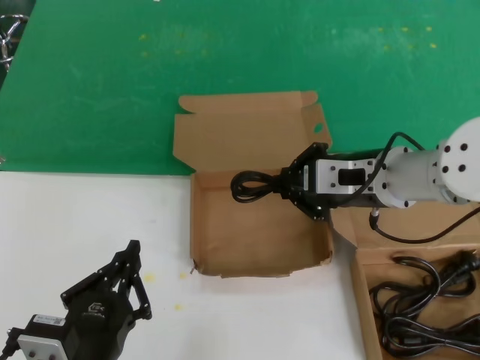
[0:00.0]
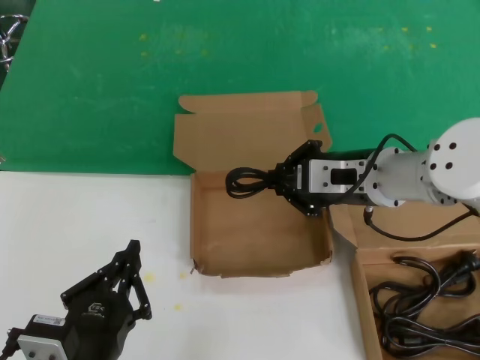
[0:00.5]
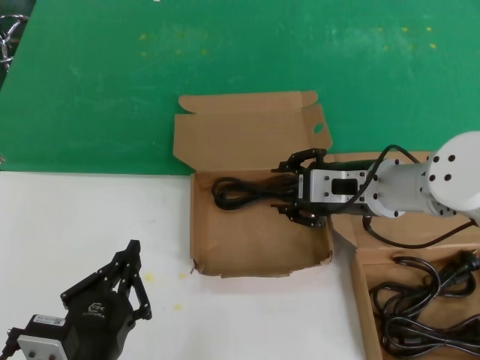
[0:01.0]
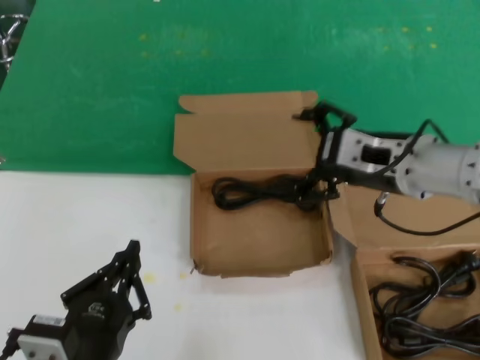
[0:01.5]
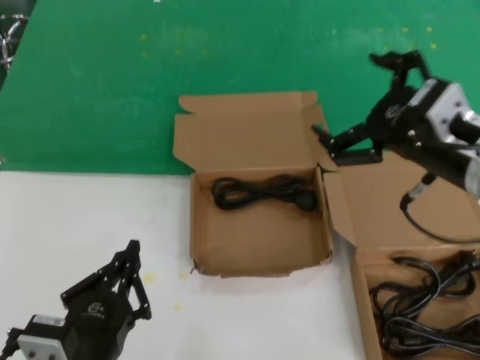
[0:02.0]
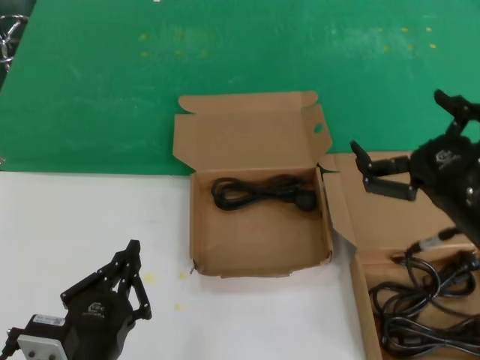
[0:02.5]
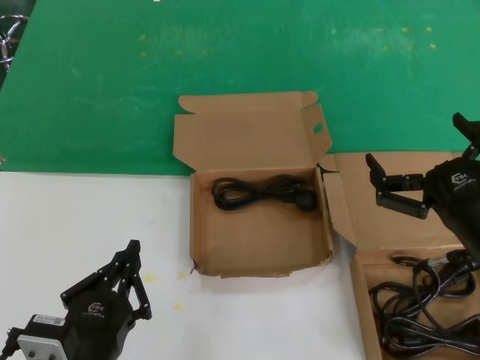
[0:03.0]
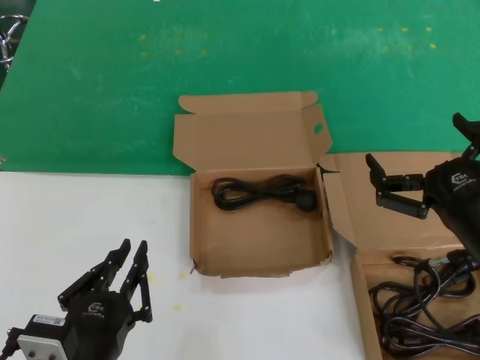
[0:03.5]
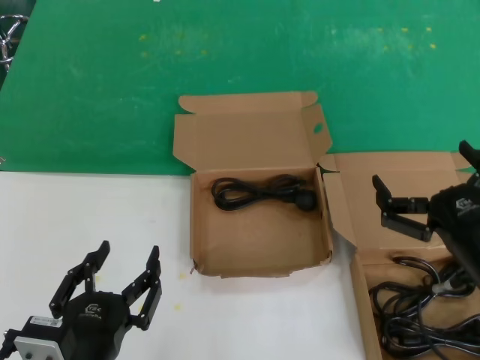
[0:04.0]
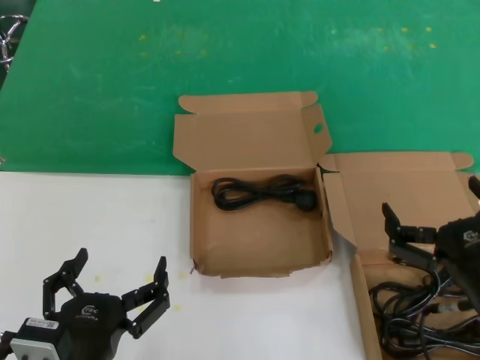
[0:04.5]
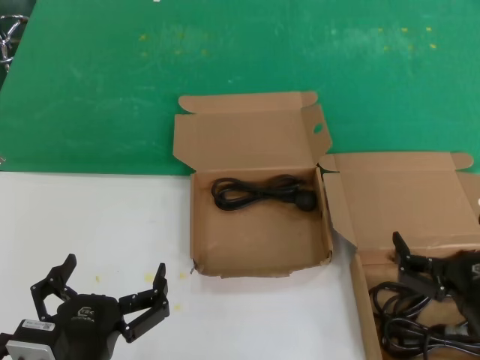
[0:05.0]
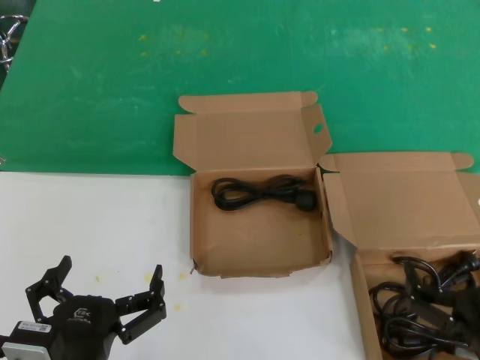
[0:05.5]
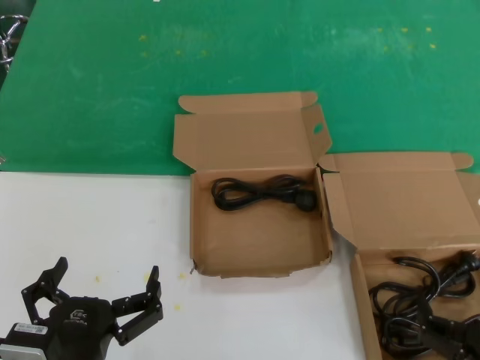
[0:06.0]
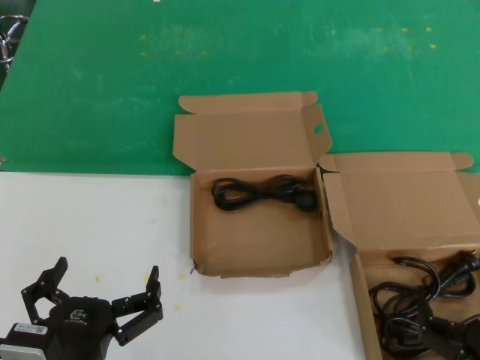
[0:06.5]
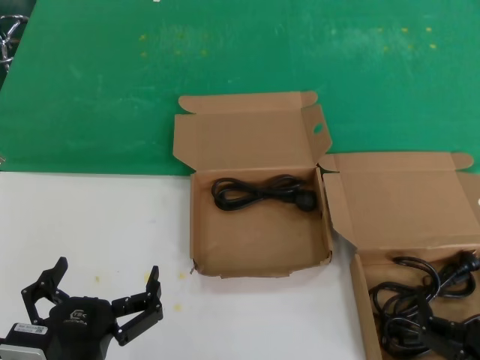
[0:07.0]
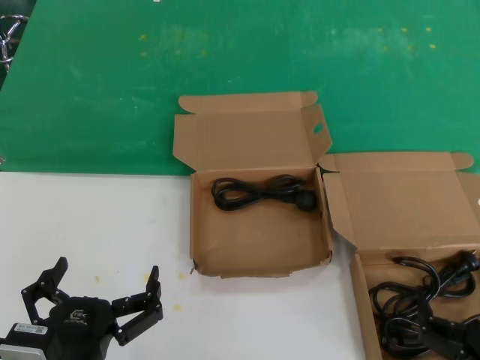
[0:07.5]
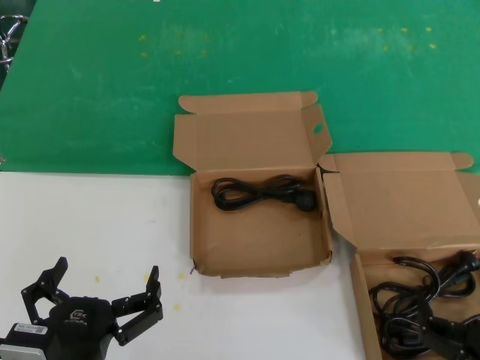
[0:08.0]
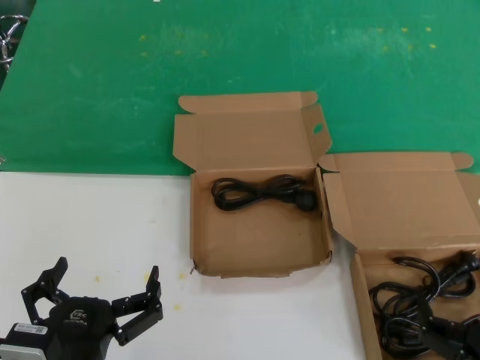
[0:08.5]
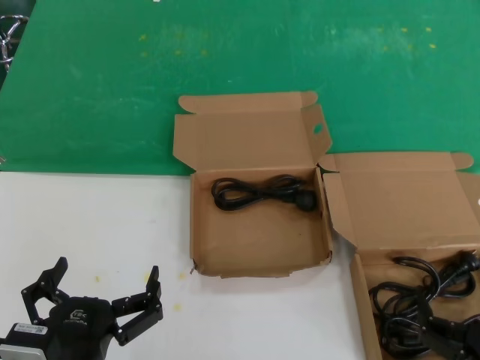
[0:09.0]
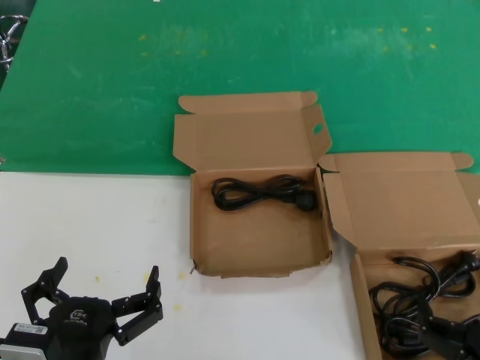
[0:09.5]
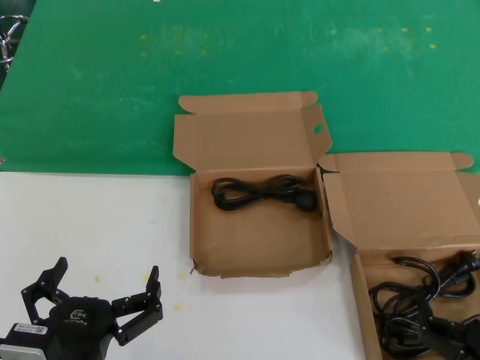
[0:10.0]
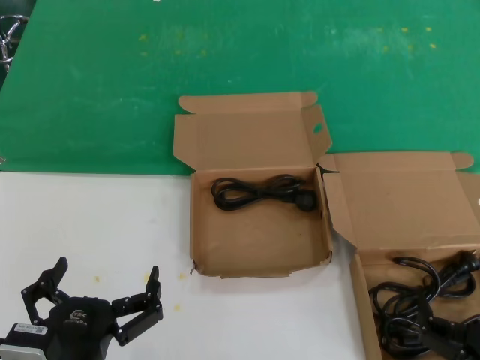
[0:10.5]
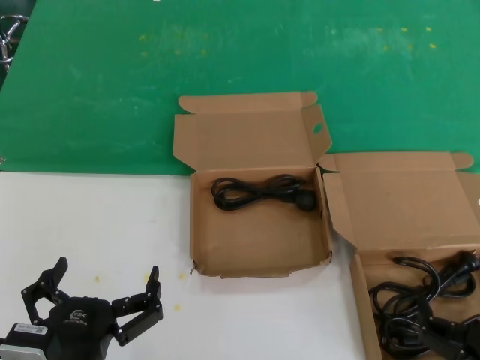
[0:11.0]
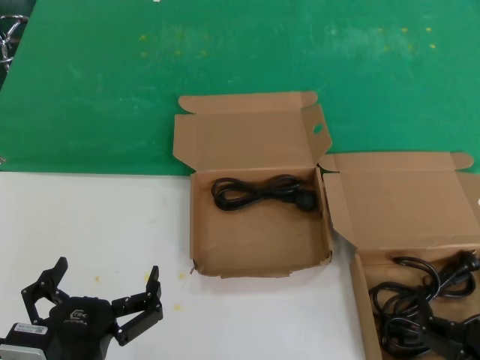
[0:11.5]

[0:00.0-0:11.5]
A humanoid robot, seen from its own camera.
Task of the whole recording: take the parts from the box containing them and put them into an empty box.
0:00.0 to 0:02.0: The right hand goes roughly 10 cm backward and to the right.
0:02.0 to 0:04.0: The right hand travels downward and backward by about 15 cm.
0:04.0 to 0:06.0: The right hand shifts about 15 cm downward and backward.
0:06.0 to 0:11.5: Both hands stay about where they are.

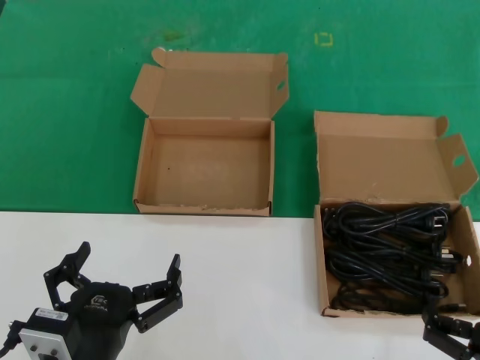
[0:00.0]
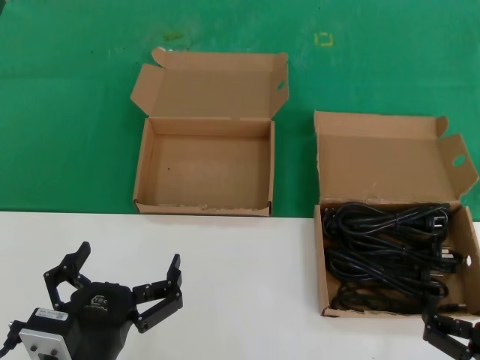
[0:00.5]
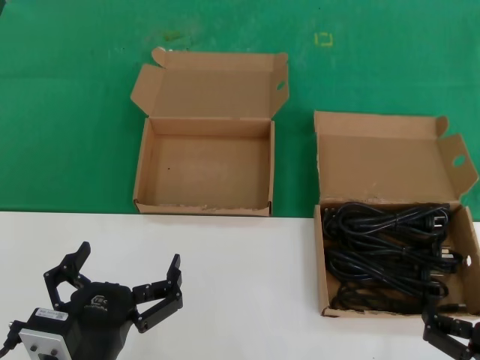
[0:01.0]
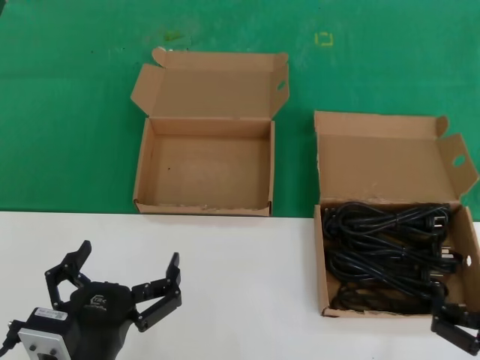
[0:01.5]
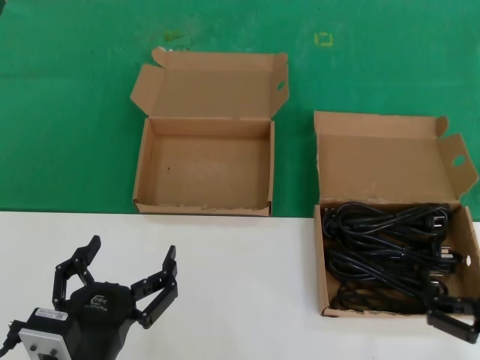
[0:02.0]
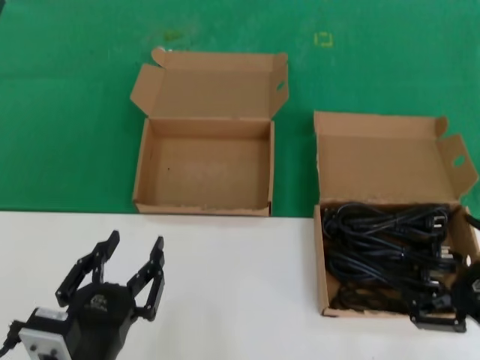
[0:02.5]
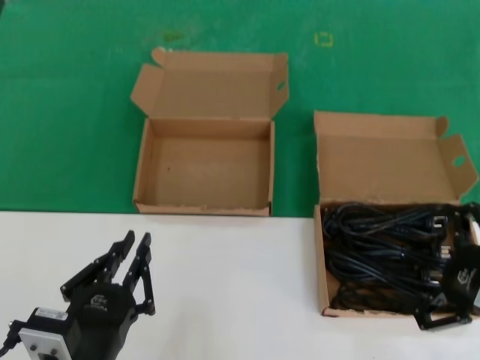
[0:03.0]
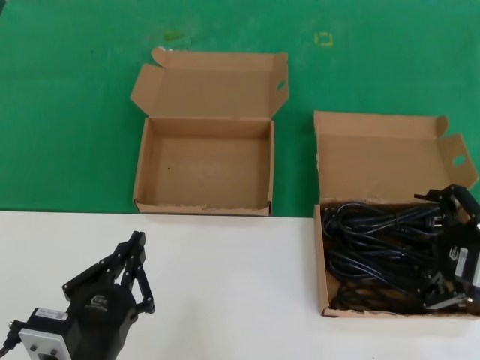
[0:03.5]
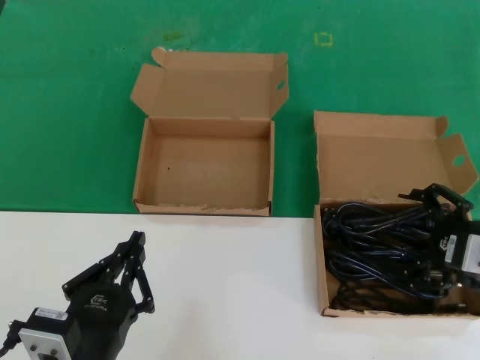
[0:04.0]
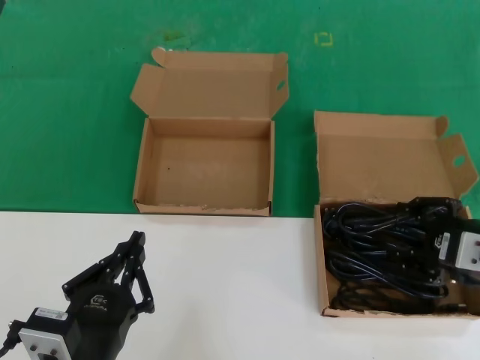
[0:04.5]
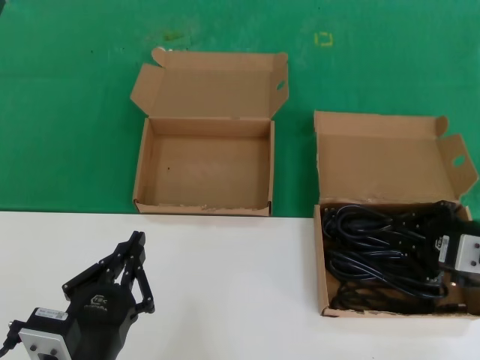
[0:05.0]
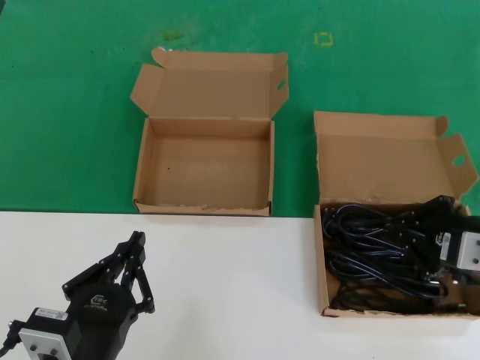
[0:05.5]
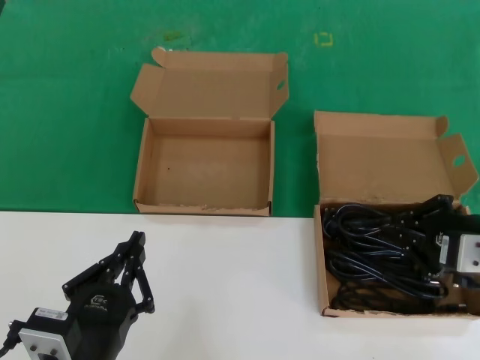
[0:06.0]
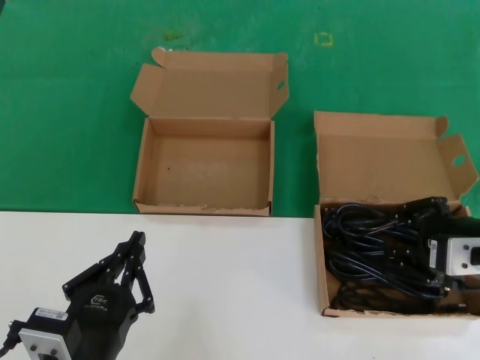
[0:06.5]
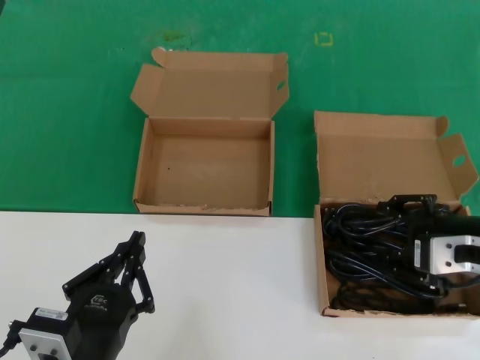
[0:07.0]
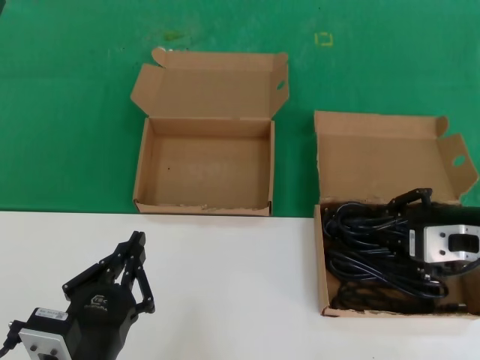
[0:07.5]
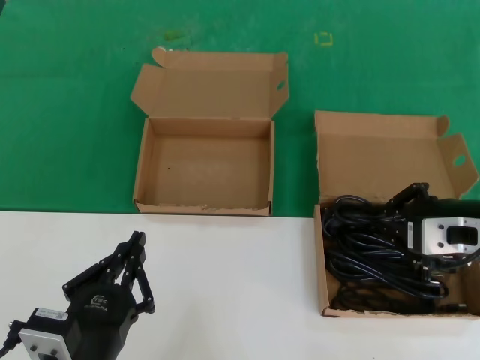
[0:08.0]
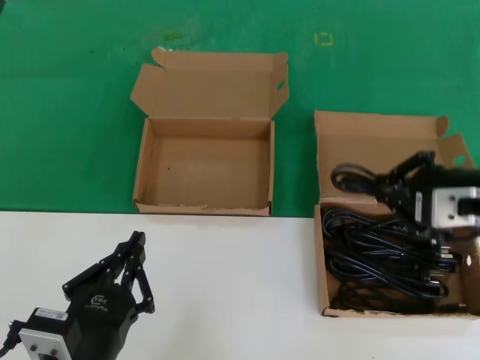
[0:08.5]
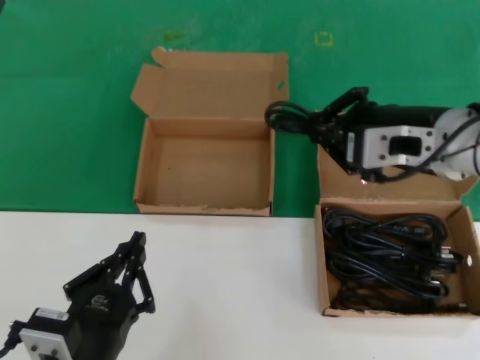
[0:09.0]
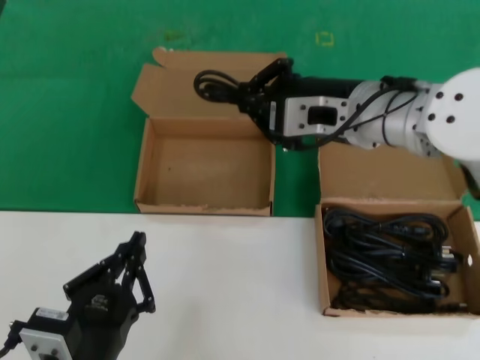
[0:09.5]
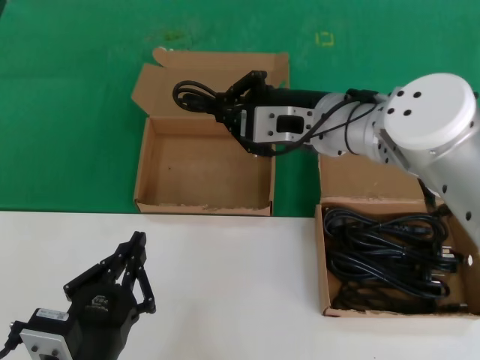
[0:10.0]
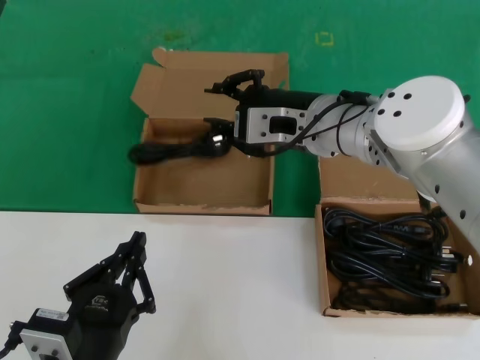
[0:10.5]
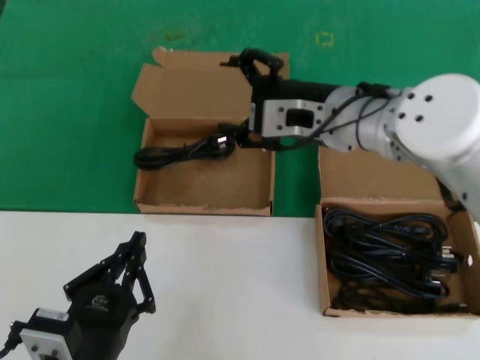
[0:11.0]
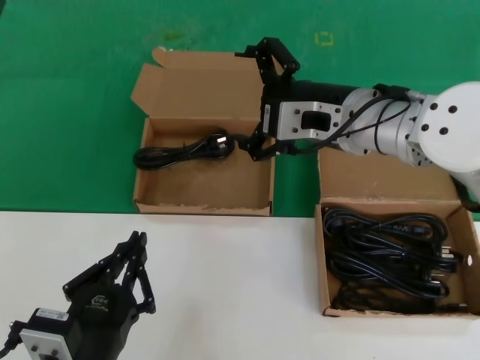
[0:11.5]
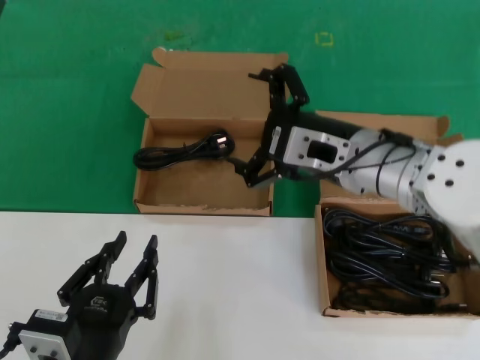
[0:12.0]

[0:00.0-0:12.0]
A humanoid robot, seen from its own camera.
Task of the whole recording: take the parts from the box containing them and put them into an empty box.
Step, 0:00.0 to 0:07.5: Grasp the data cable.
Step, 0:08.0 to 0:10.5: Place the data cable in the another box.
0:00.0 to 0:02.0: The hands make only small movements.
0:02.0 to 0:04.0: The right hand is displaced upward and forward by some 20 cm.
0:04.0 to 0:08.0: The hands stay close to where they were, moving slightly.
0:08.0 to 0:10.0: The right hand is displaced to the left, forward and upward by some 20 cm.
0:10.0 to 0:12.0: The right hand changes place by about 5 cm.

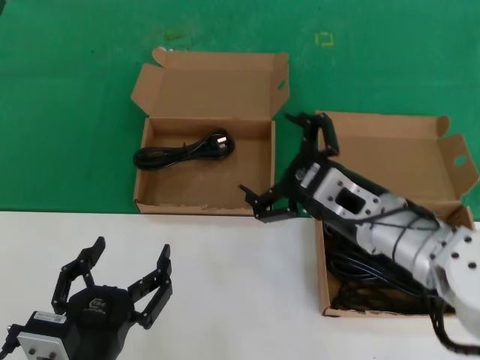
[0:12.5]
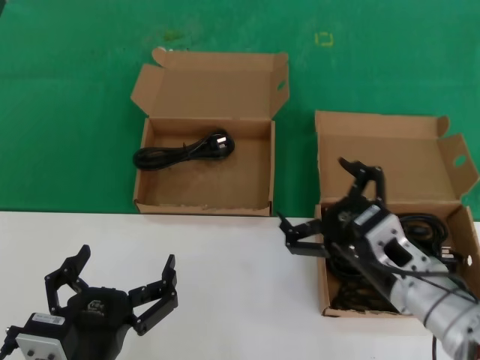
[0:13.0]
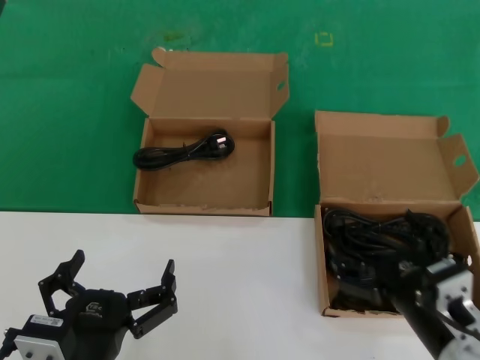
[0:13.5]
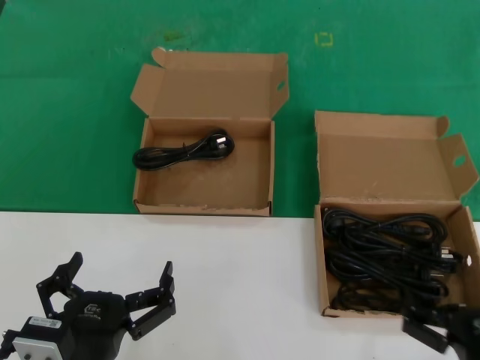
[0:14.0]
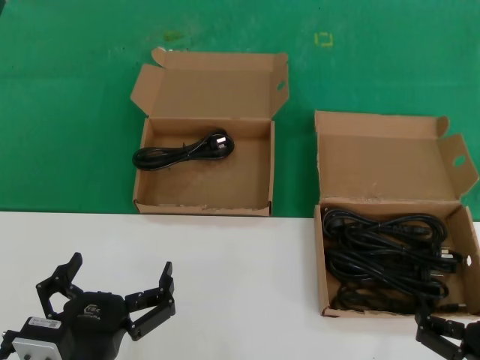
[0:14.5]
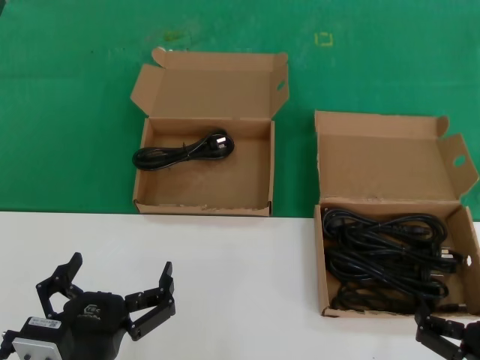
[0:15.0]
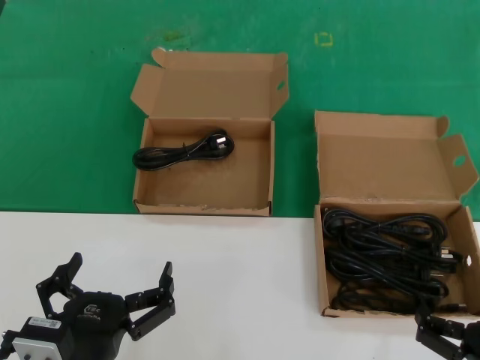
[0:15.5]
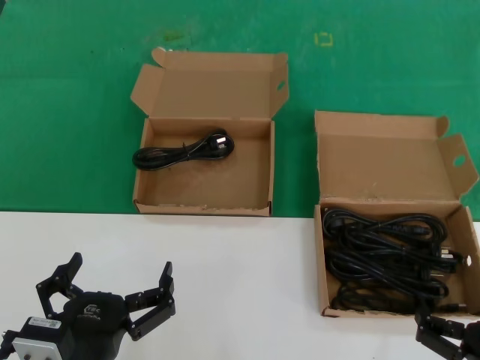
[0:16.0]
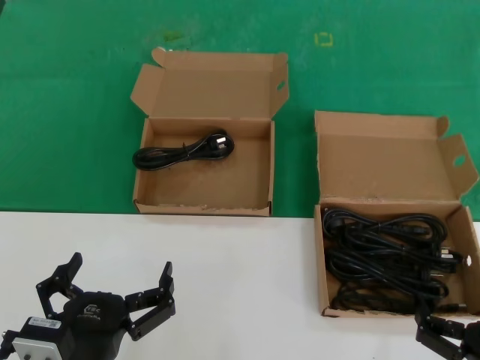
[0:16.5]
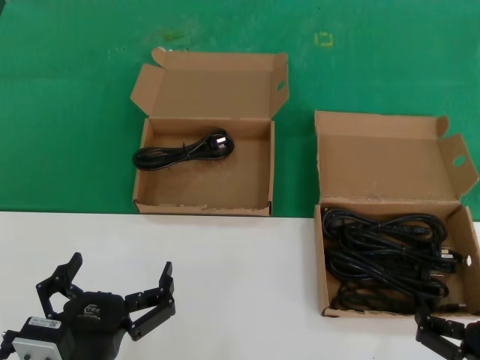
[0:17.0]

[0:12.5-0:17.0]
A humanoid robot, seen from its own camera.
Task of the whole recording: take the parts from the box containing them and put them into an empty box.
0:12.5 to 0:14.5: The right hand shifts approximately 30 cm backward, downward and to the right.
0:14.5 to 0:17.0: Neither hand changes place.
